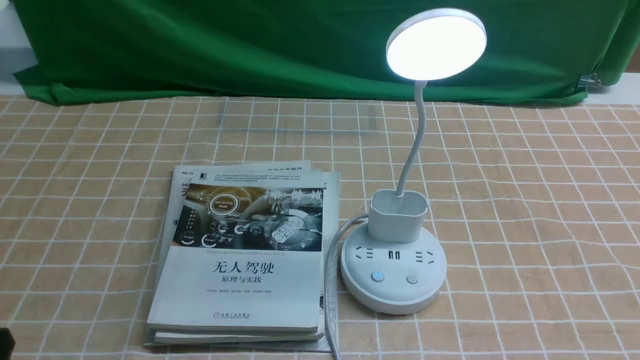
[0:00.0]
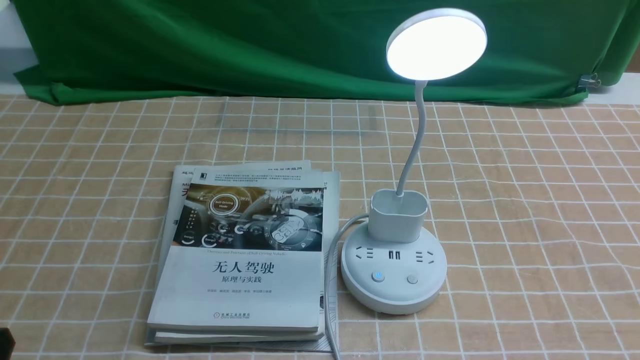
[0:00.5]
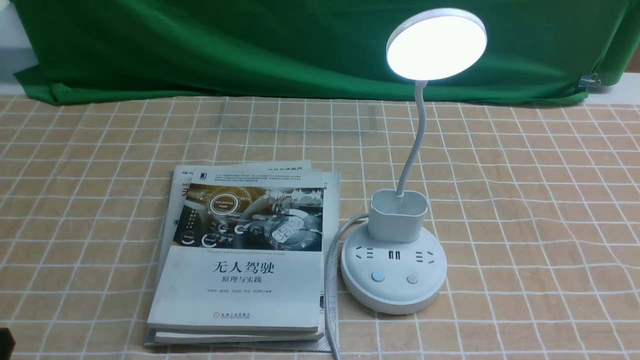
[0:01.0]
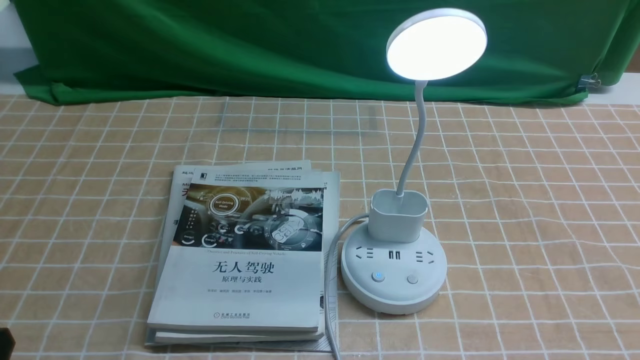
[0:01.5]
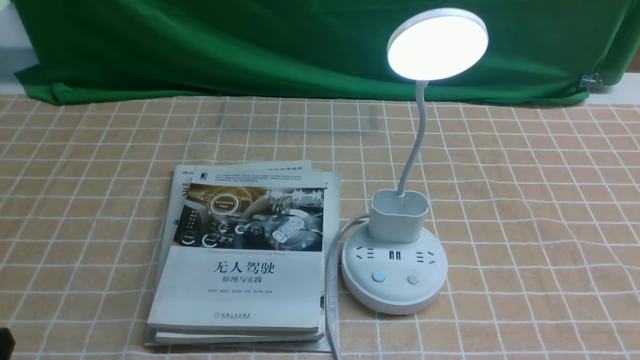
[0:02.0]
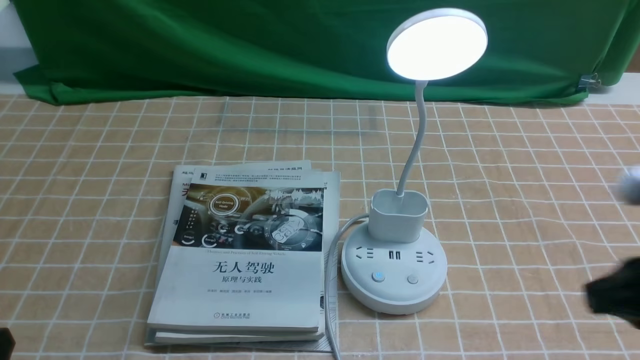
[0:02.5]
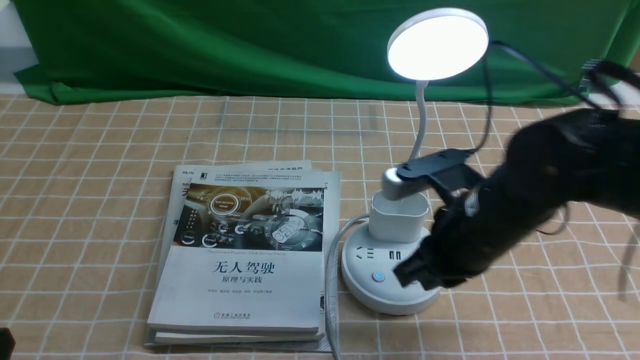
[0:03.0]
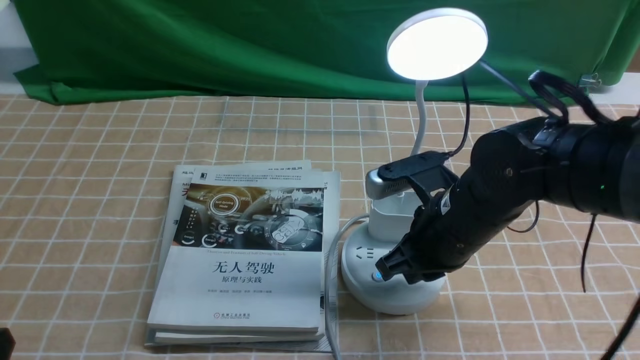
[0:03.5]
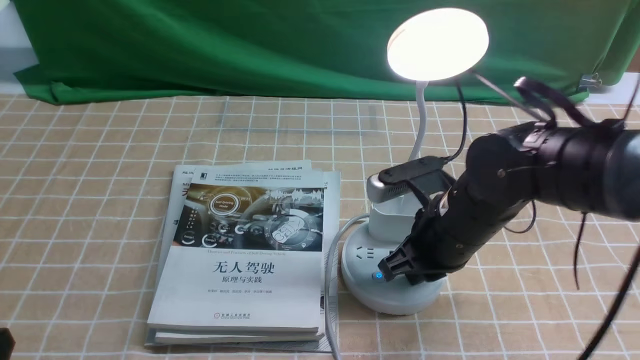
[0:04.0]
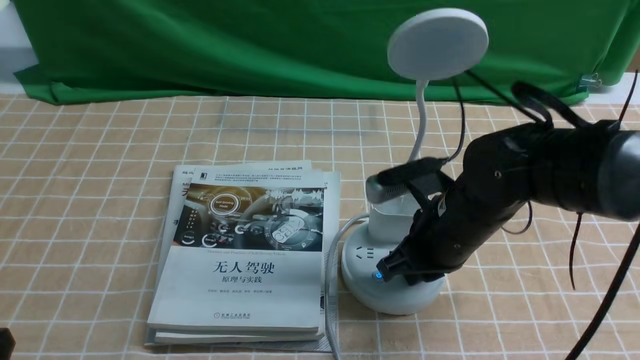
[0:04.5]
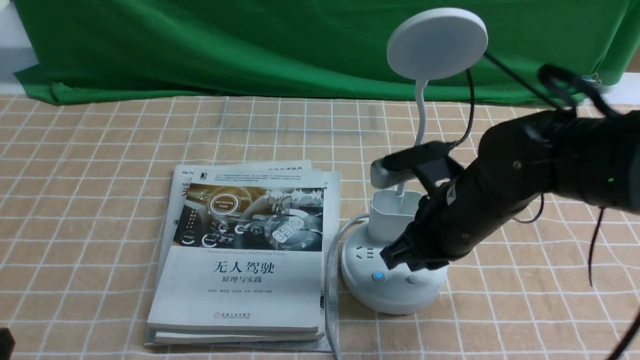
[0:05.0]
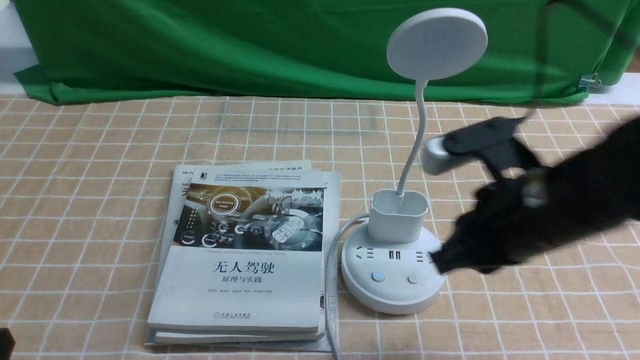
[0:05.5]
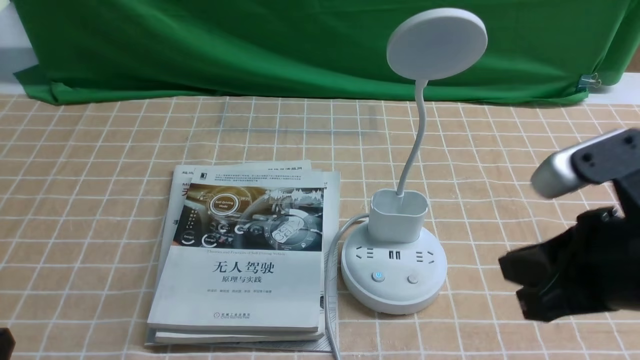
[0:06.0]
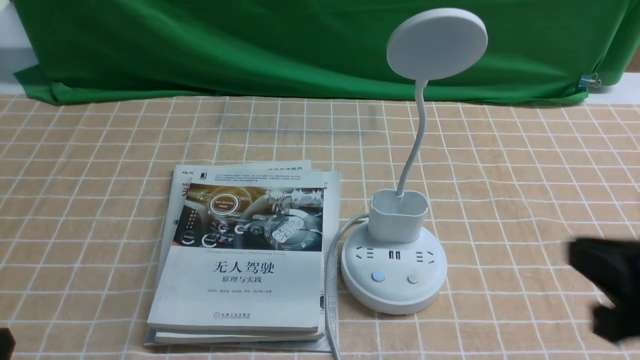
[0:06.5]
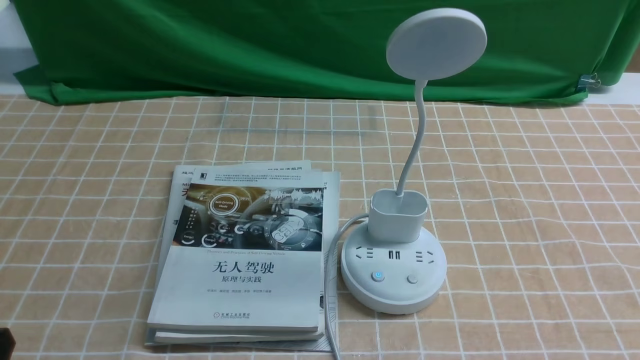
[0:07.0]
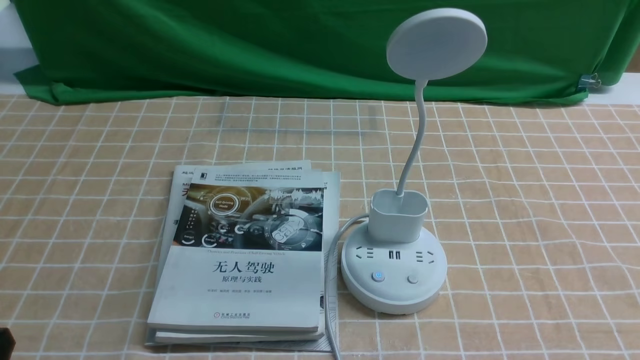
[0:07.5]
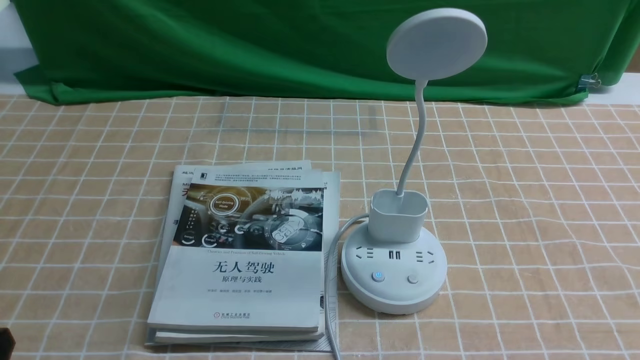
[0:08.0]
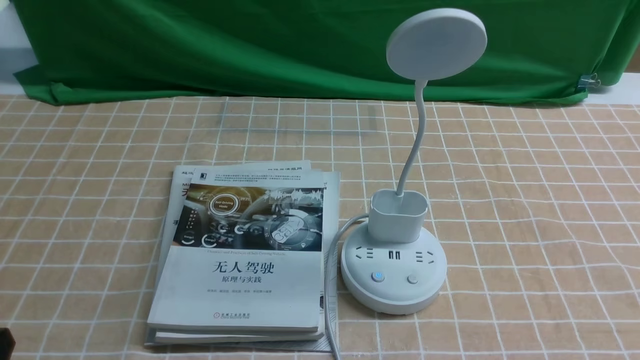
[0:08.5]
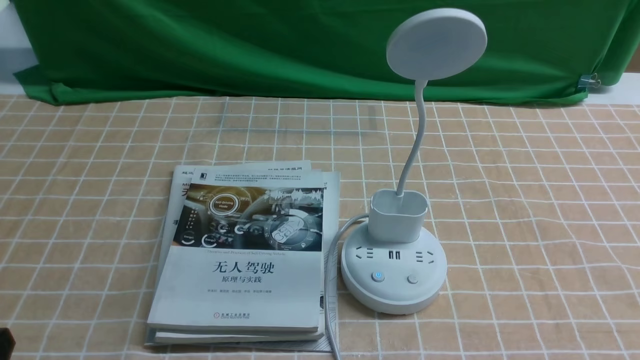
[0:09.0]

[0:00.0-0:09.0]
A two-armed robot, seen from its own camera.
Task of the whole recording: turn off the desk lamp on the light coffee tablecloth by hand.
Step, 0:00.0 to 0:05.0: use the right arm to press the button switch on the lamp holder.
0:02.0 to 0:04.5: The right gripper moves forward and to the left, roughly 30 cm, and closes.
0:04.5 to 0:07.0: The right gripper is displaced backward and to the right by approximately 30 cm.

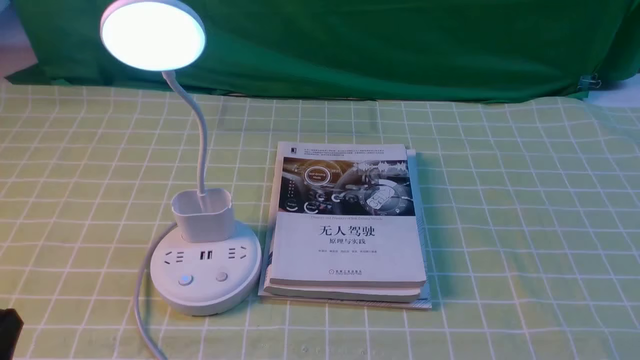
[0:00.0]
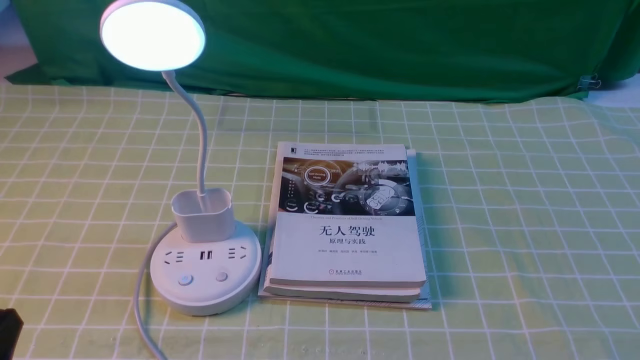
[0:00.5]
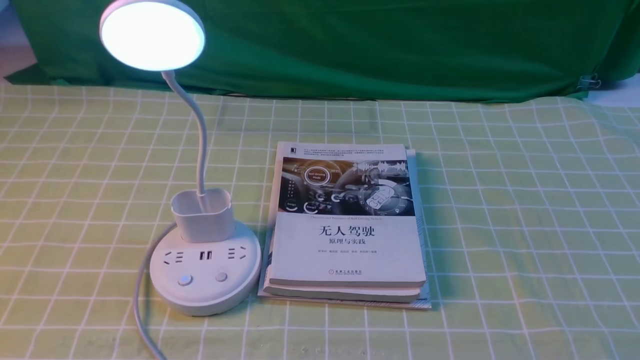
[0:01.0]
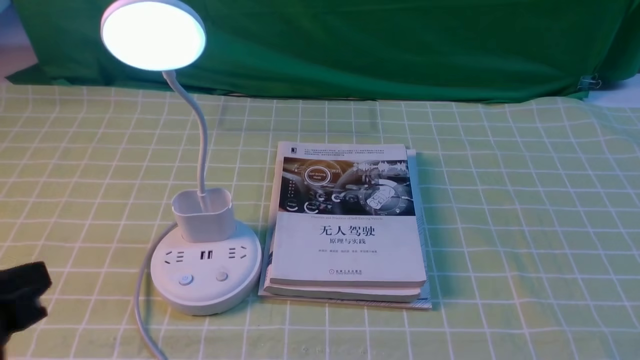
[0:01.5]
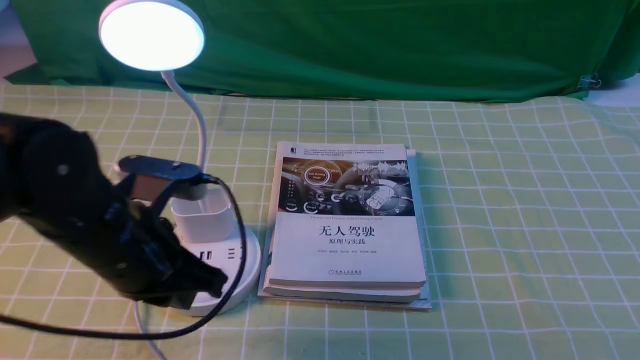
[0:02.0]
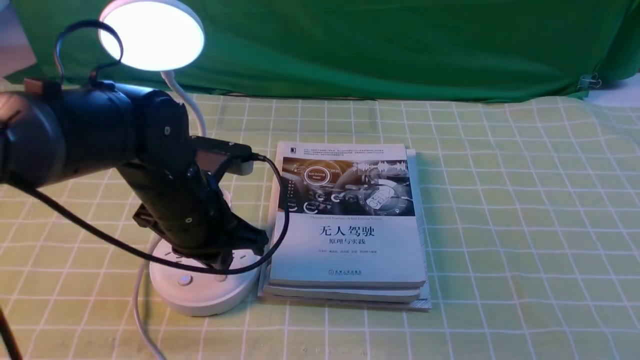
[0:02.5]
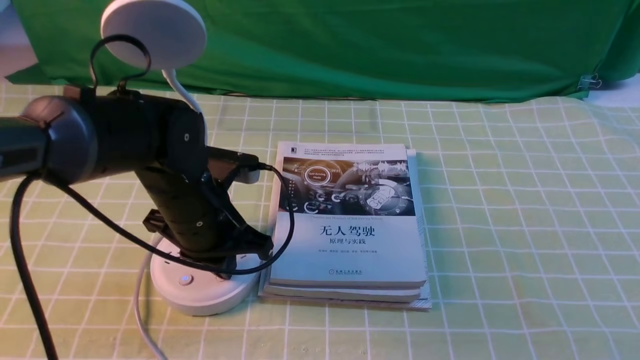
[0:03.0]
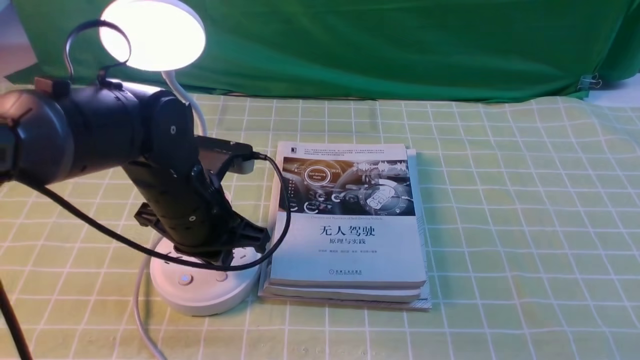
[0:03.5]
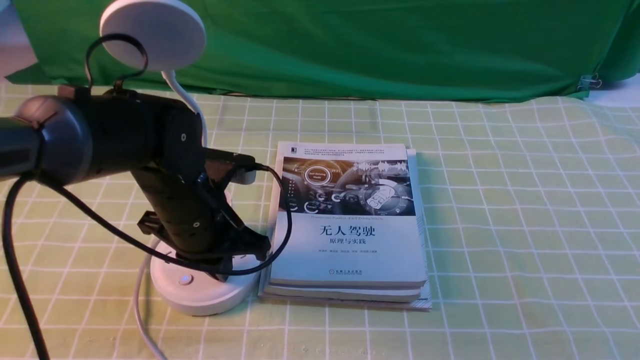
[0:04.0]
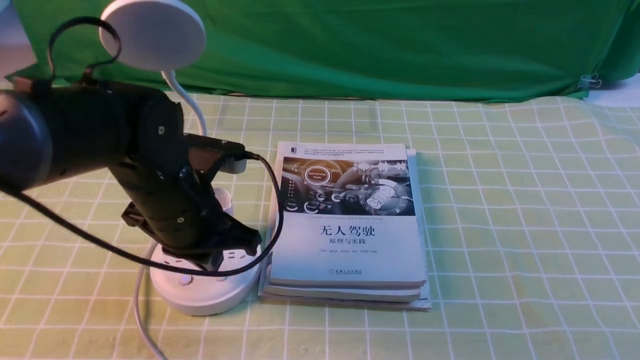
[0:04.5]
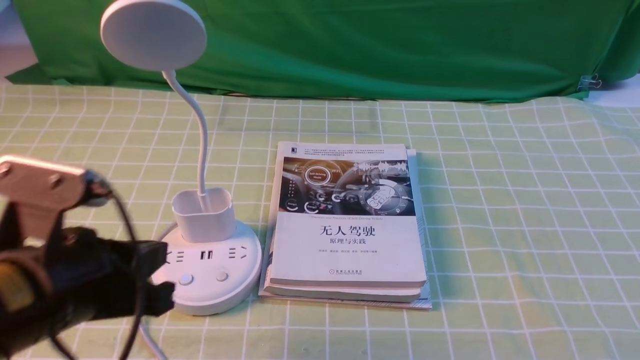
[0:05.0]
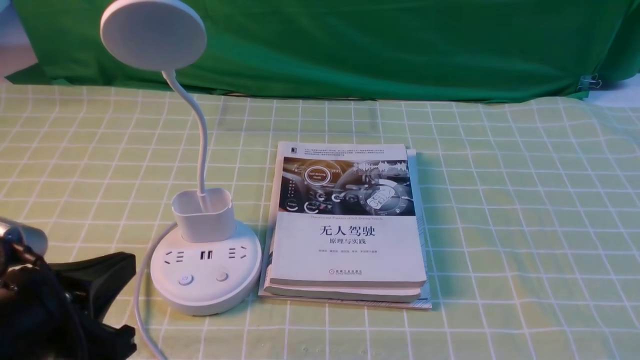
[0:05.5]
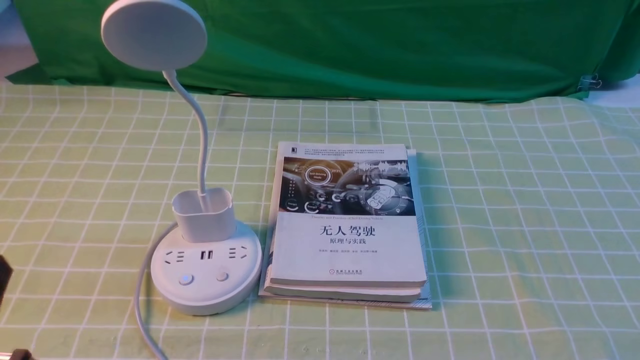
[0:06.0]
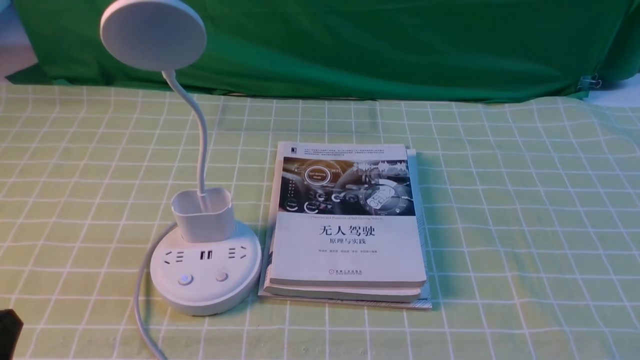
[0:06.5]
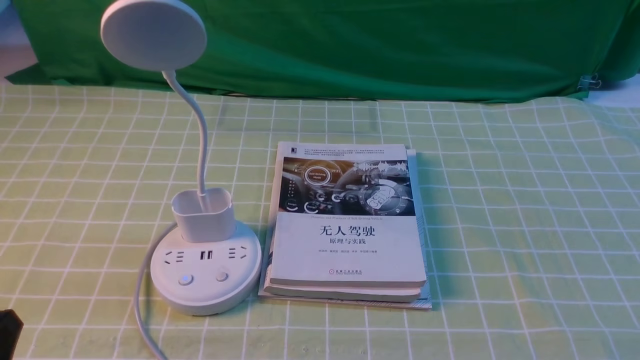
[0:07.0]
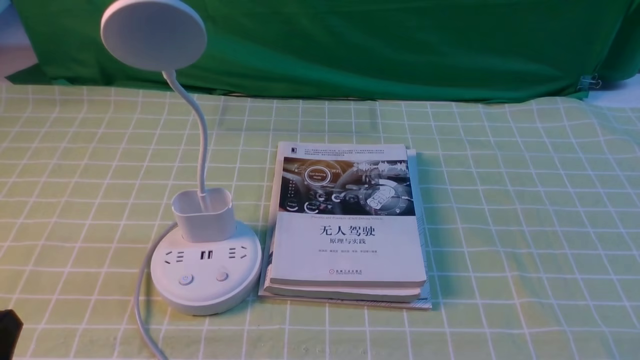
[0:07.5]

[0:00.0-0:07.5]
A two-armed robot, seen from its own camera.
Task of the whole recording: turn off the desk lamp on the green coffee tablecloth by hand.
Step, 0:00.0 to 0:04.0: use the left arm to press the button switch on the lamp holder.
0:02.0 to 0:04.0: The left gripper moves forward, downward and to the right, approximately 15 cm.
0:04.0 to 0:05.5: The left gripper is displaced backward and to the left by about 20 cm.
0:05.5 to 0:07.5: The left gripper is displaced backward and downward by about 10 cm.
